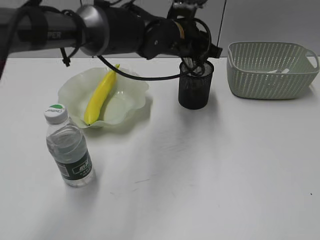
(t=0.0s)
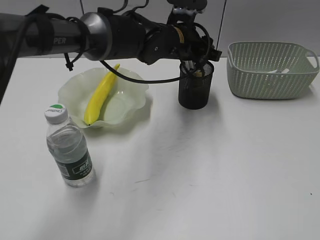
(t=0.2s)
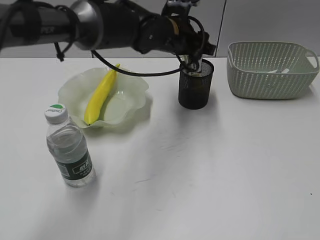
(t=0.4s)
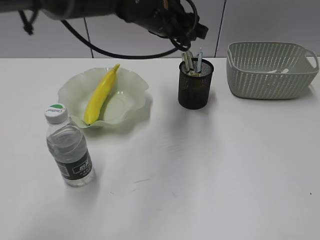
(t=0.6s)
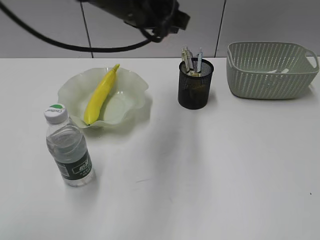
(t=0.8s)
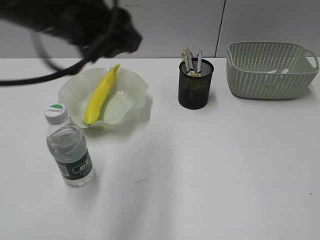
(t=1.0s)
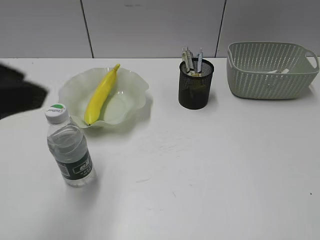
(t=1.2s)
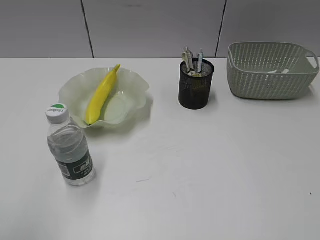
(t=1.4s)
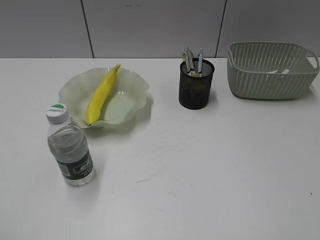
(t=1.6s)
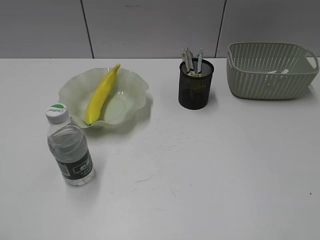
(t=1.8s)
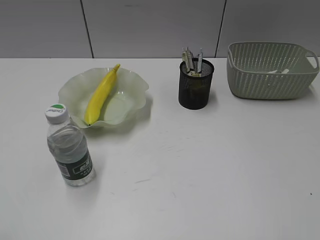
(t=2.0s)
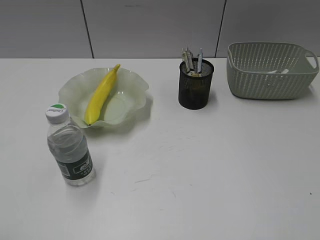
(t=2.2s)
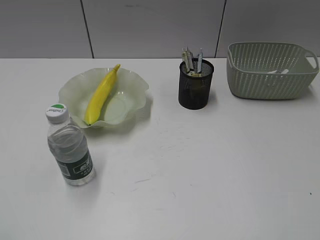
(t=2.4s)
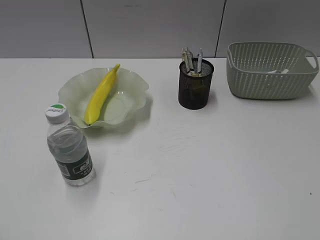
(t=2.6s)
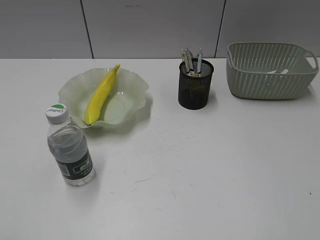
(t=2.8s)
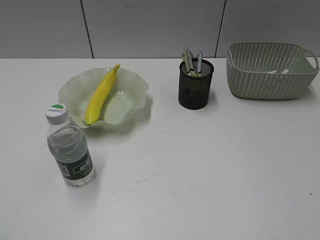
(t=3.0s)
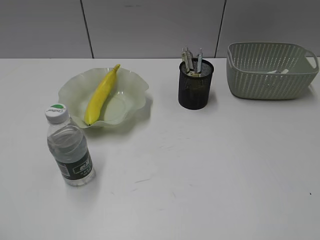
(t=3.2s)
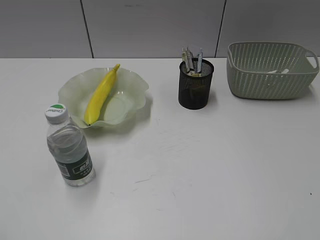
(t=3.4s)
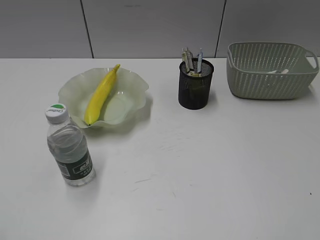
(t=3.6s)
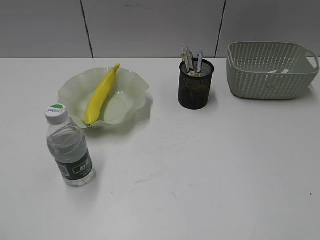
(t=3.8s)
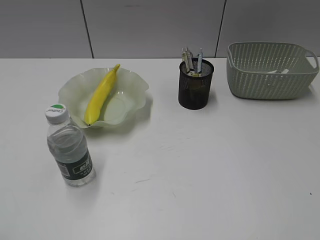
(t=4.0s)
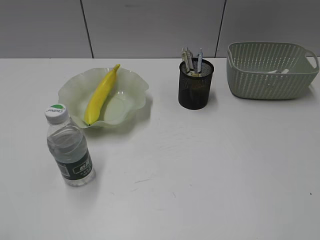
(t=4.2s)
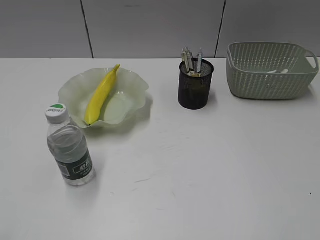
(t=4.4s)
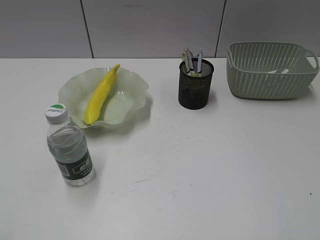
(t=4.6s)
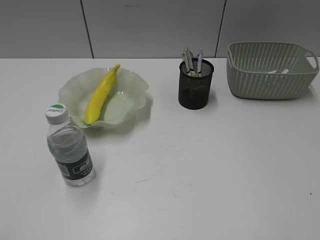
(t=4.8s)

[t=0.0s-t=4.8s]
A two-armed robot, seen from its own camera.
t=0.0s to t=1.6s: The left gripper heads backward and to the left, covering some 50 cm, and opens.
